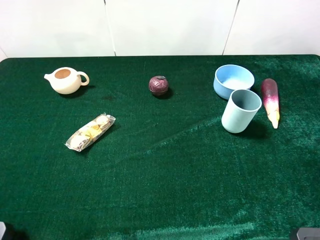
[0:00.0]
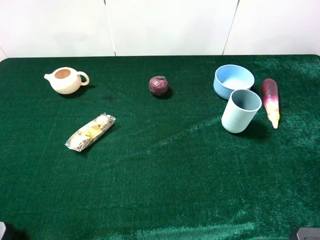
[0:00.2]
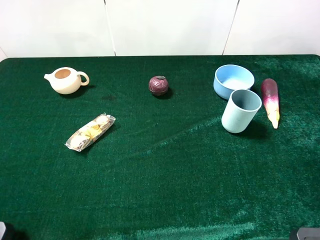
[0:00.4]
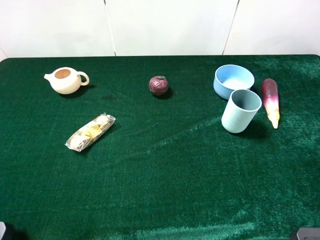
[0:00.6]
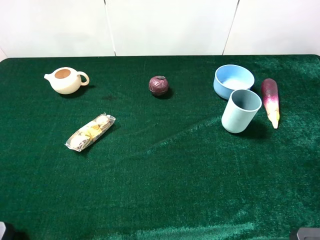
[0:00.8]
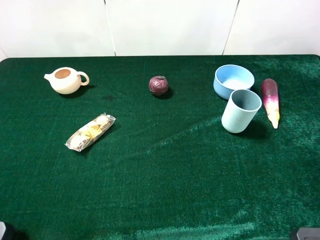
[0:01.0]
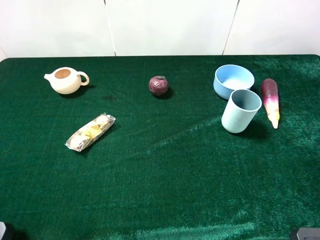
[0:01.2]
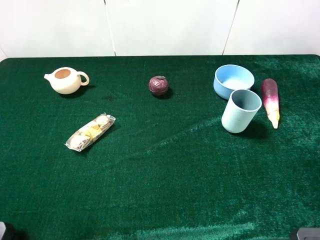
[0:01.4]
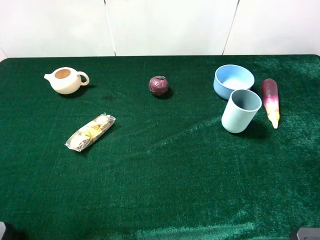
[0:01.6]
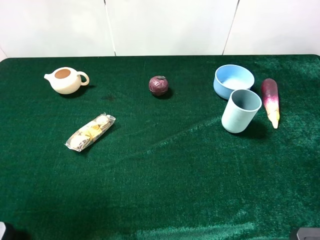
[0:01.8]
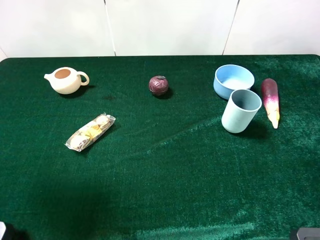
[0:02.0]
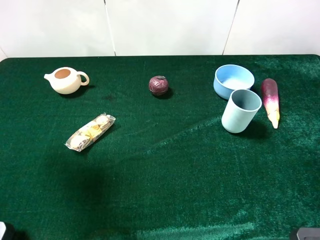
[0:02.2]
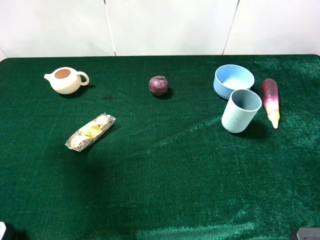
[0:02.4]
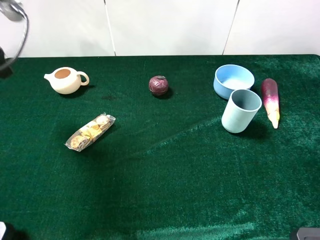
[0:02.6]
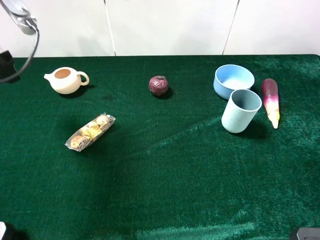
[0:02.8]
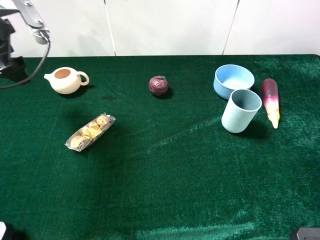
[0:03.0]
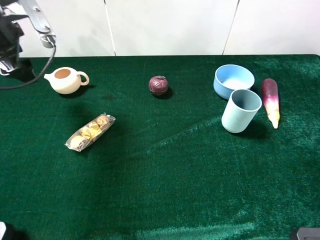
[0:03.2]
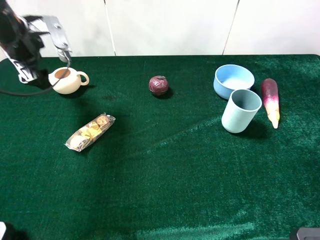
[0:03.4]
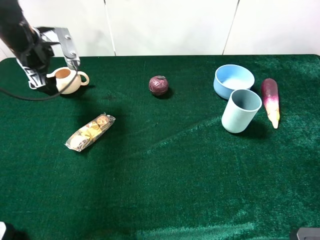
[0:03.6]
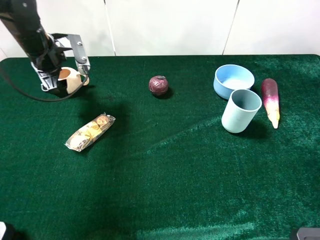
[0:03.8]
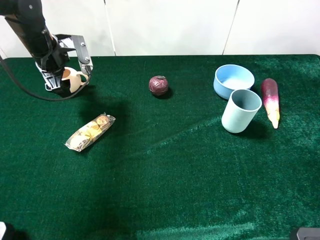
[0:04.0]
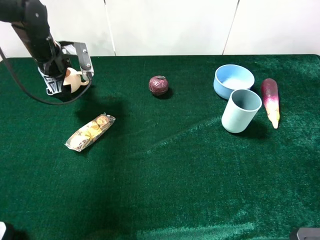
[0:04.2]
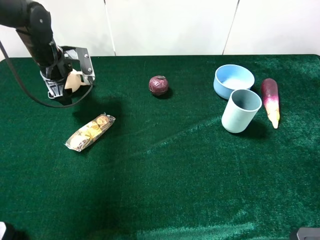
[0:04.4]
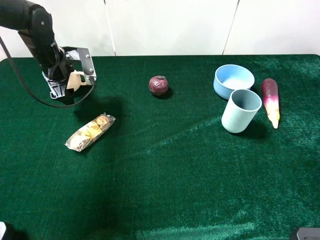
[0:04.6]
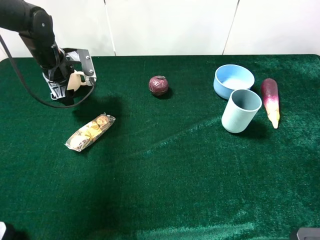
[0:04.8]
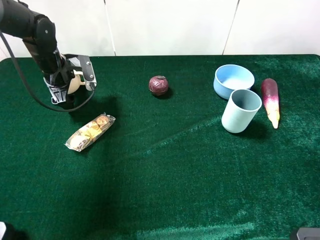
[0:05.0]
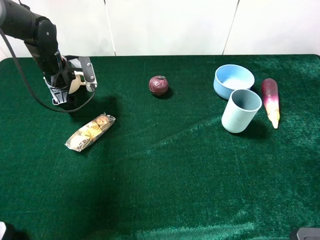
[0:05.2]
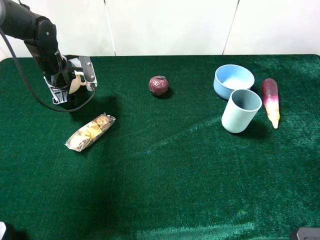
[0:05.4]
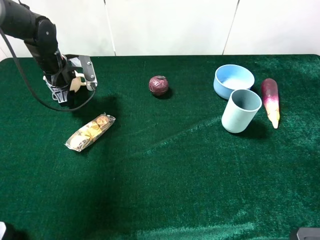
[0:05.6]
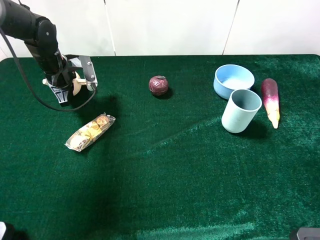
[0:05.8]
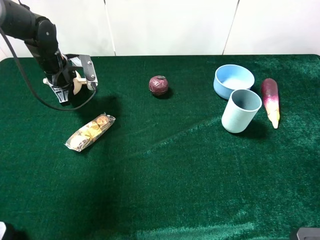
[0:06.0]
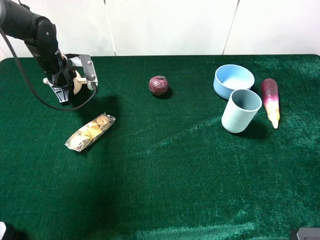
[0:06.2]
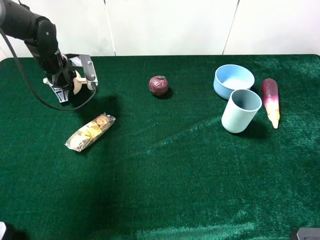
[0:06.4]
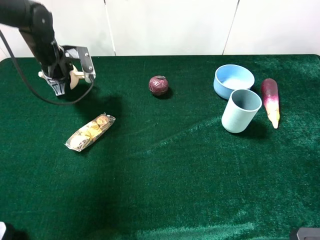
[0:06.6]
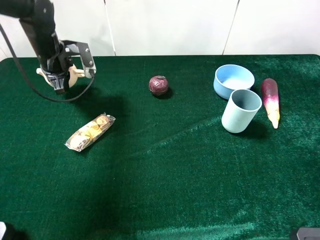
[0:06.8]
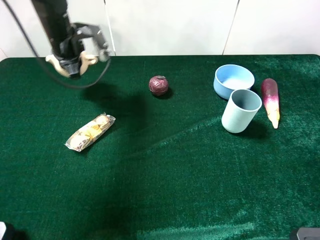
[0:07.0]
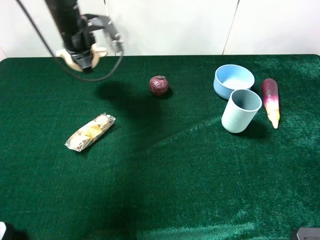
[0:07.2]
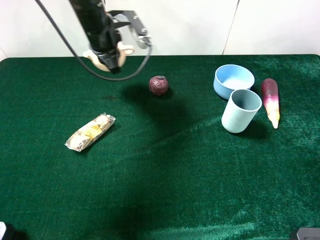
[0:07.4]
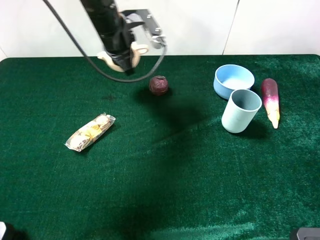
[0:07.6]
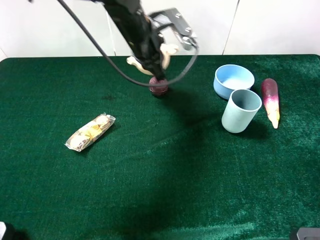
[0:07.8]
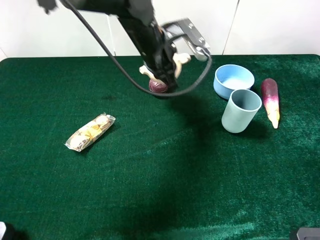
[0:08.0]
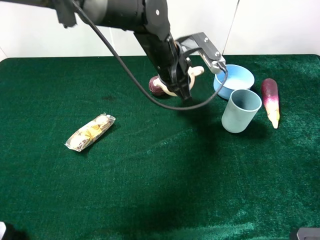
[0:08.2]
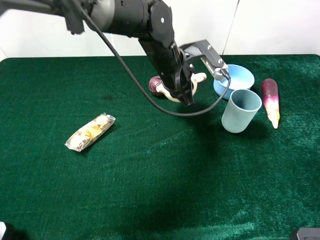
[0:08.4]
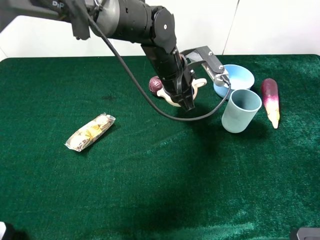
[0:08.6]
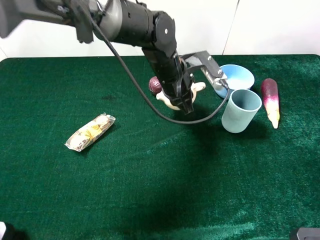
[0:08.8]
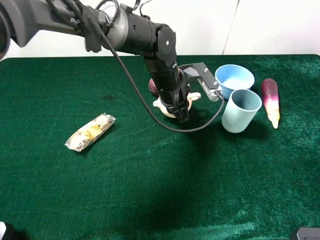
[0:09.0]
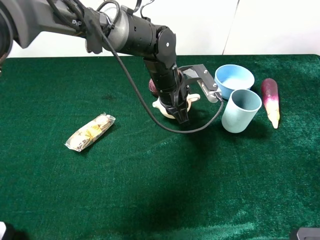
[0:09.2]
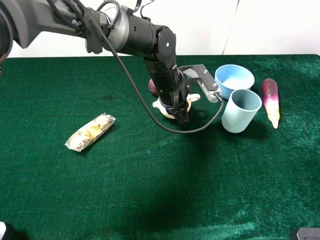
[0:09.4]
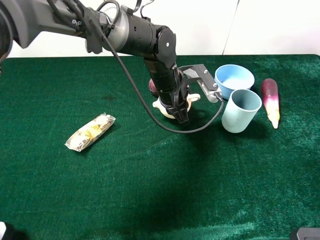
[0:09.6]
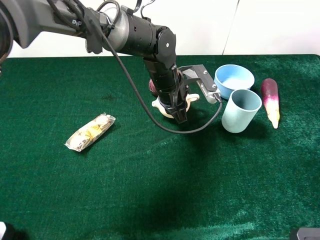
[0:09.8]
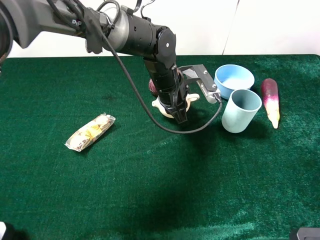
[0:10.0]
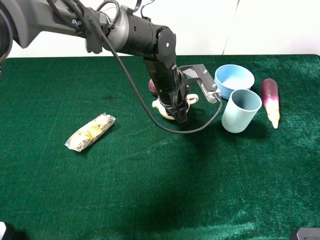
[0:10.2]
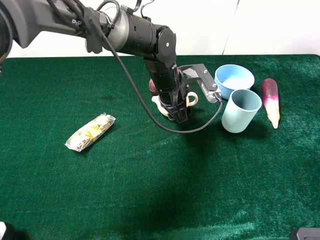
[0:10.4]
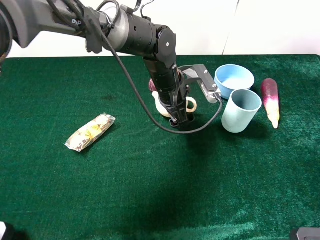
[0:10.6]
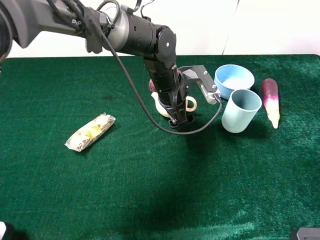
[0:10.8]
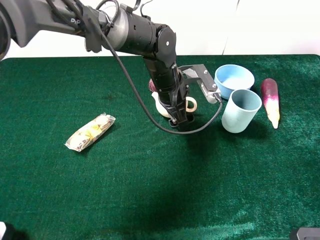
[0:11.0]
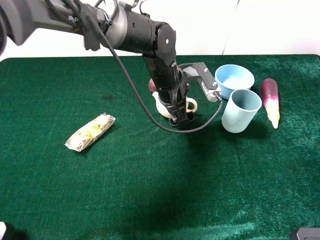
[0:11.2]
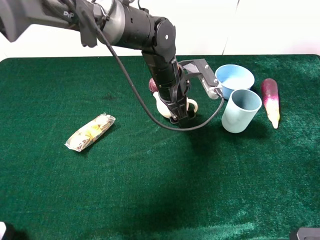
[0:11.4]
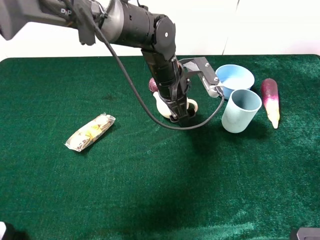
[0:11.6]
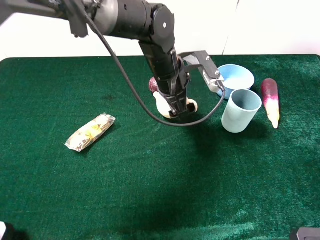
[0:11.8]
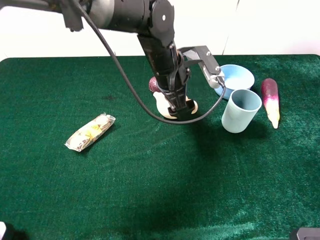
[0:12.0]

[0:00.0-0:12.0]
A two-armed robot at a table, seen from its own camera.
Task of the whole recording: the gripper move the object.
Step, 0:00.0 to 0:06.2: Grasp the teapot with the left gripper.
Step, 0:06.4 to 0:11.8: Place the teapot on the table with the left gripper.
0:01.6 to 0:03.0: The left gripper travels forward by about 25 cm.
0:03.0 to 0:04.4: The left gripper is displaced downward and forward by some 15 cm.
0:04.4 to 0:06.0: The left gripper closes.
0:06.0 to 0:07.6: The left gripper shifts approximately 20 cm to the right and upward.
0:07.6 to 0:09.0: The left gripper heads to the right, downward and backward, covering roughly 15 cm.
0:09.0 to 0:10.4: The left gripper opens.
0:10.4 to 0:12.0: The left gripper moves upward, roughly 5 cm.

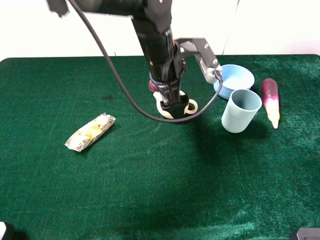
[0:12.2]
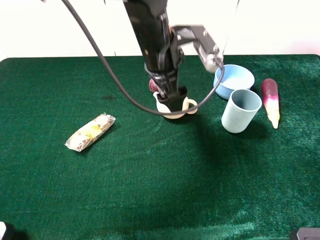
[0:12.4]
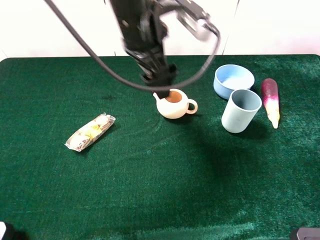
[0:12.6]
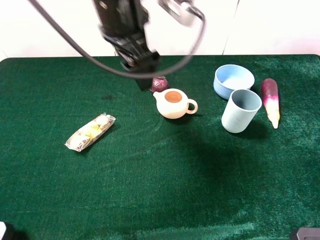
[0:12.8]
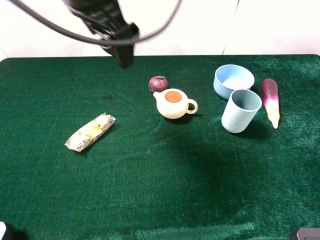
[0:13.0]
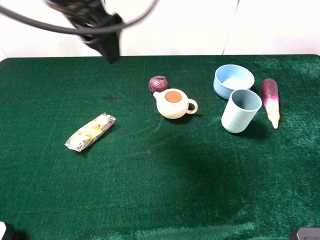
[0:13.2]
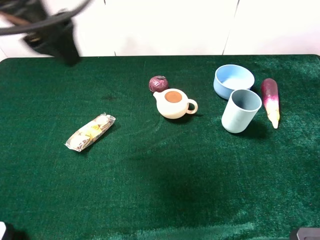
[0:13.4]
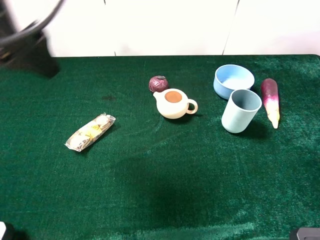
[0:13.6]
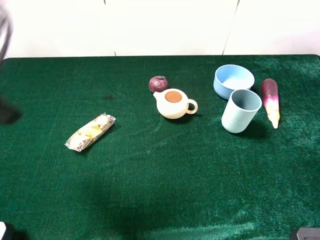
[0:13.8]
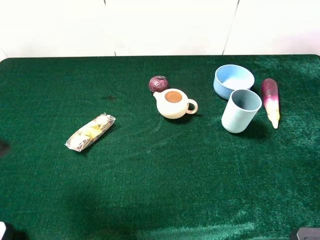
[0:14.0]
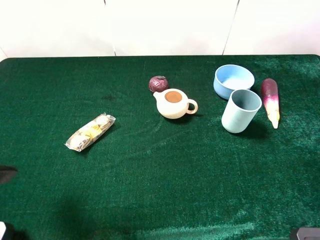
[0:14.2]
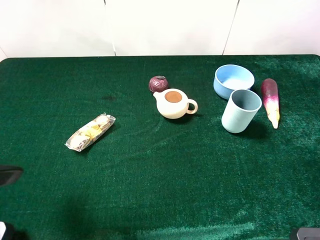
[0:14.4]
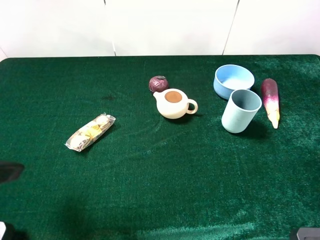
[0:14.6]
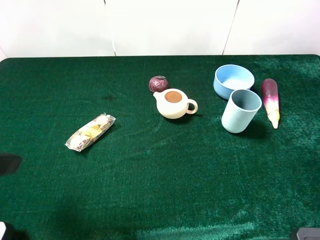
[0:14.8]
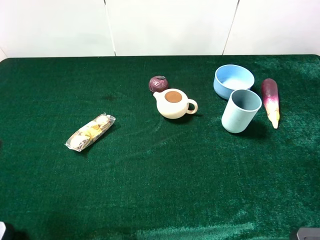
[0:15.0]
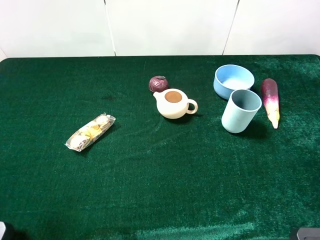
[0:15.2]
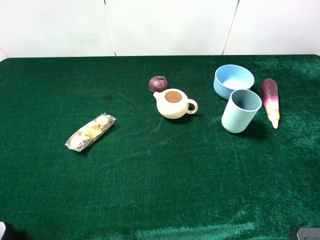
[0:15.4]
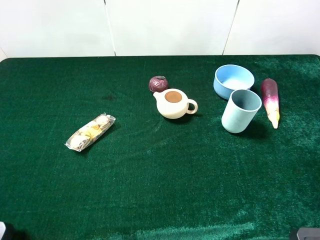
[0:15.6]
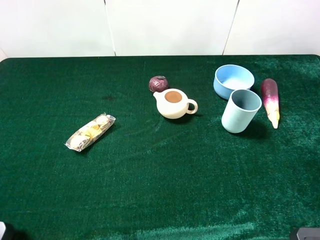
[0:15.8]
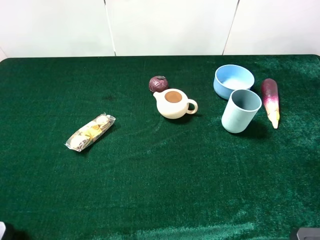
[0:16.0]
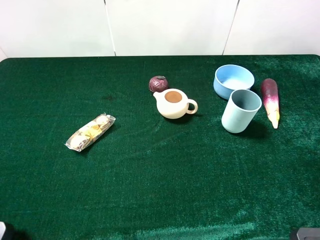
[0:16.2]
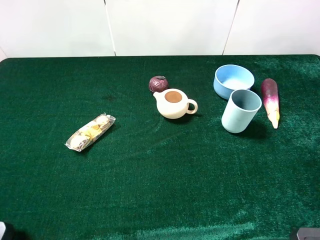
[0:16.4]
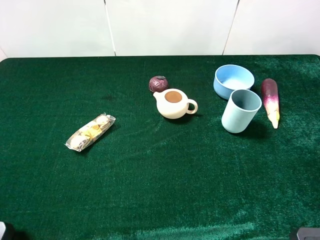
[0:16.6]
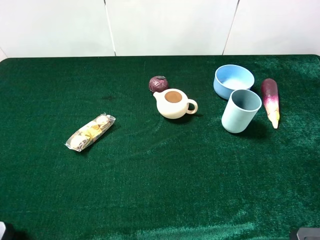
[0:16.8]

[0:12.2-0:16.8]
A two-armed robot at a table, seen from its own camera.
Task of the whole recording: the gripper move the object.
0:12.2 to 0:13.8: The left gripper is displaced to the left, backward and upward by approximately 35 cm.
0:13.8 to 0:15.2: The left gripper is displaced backward and to the left by about 10 cm.

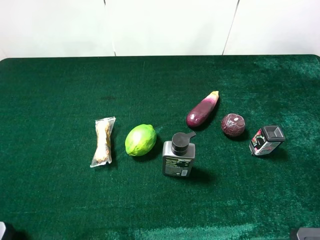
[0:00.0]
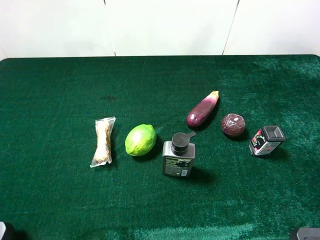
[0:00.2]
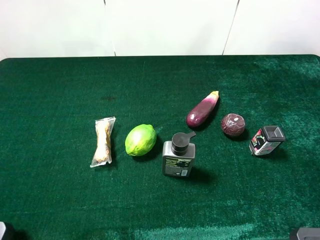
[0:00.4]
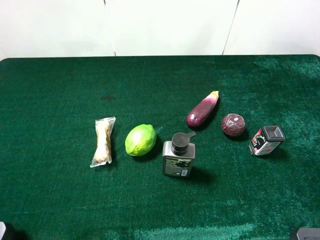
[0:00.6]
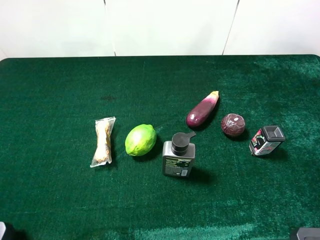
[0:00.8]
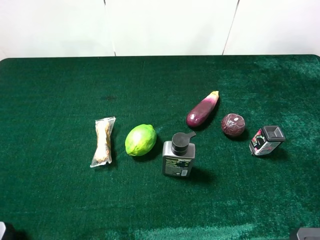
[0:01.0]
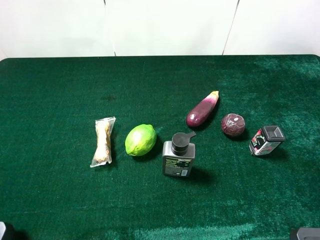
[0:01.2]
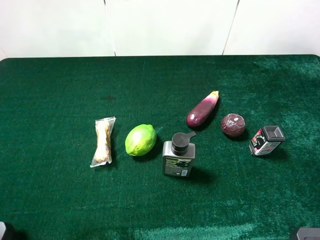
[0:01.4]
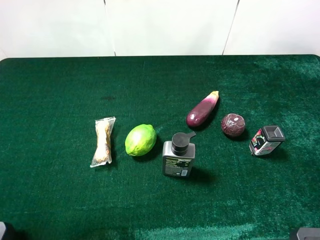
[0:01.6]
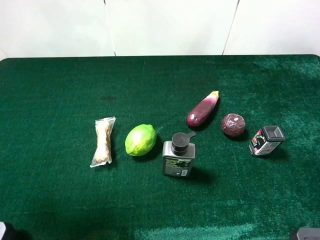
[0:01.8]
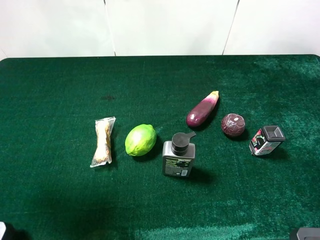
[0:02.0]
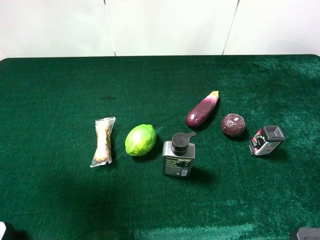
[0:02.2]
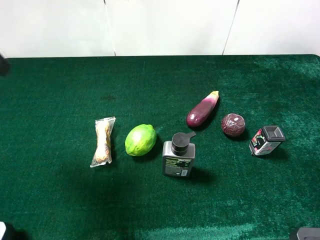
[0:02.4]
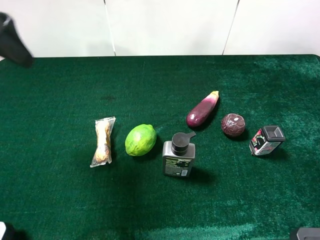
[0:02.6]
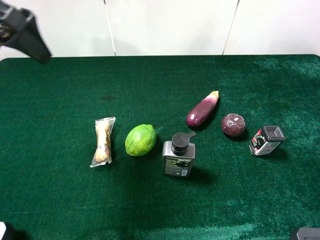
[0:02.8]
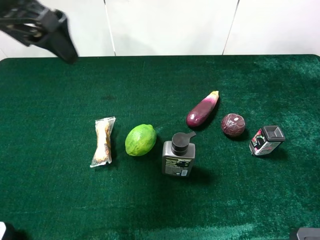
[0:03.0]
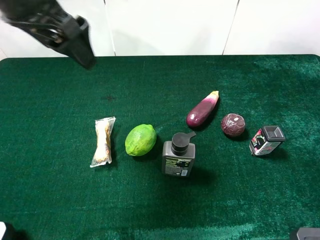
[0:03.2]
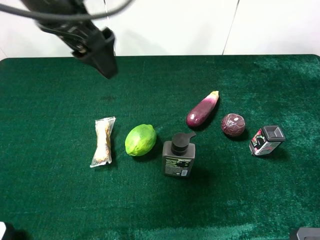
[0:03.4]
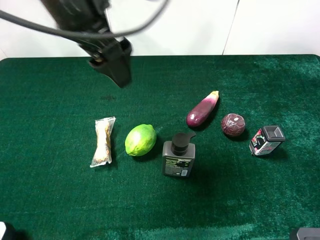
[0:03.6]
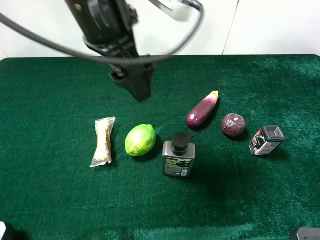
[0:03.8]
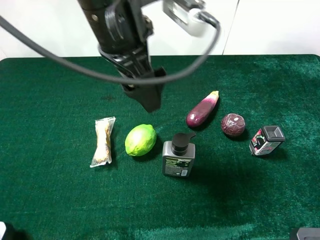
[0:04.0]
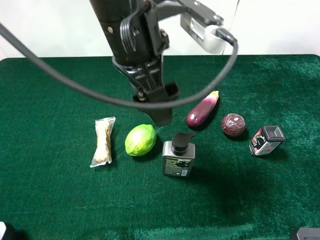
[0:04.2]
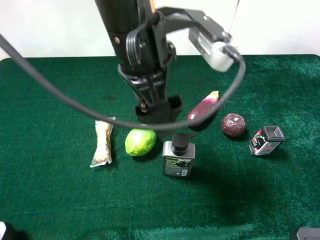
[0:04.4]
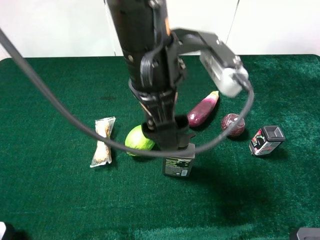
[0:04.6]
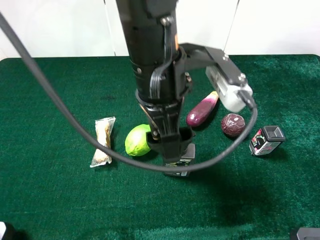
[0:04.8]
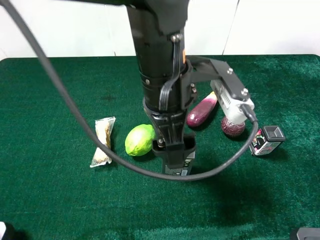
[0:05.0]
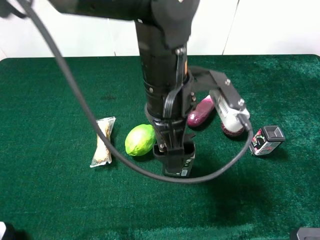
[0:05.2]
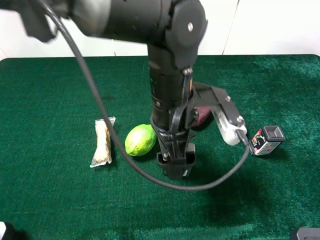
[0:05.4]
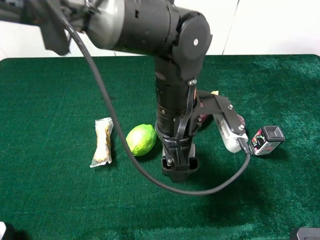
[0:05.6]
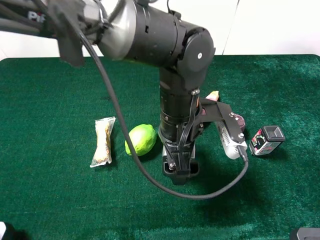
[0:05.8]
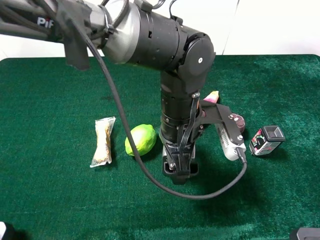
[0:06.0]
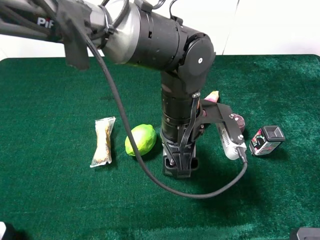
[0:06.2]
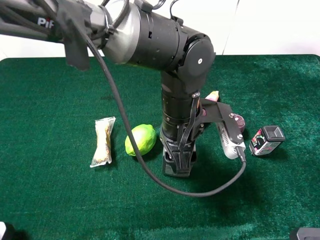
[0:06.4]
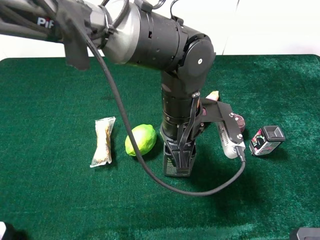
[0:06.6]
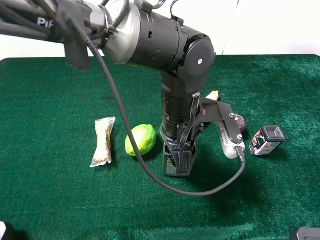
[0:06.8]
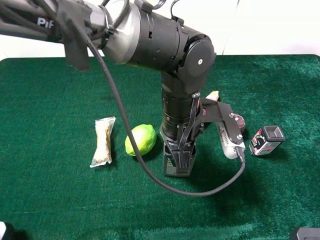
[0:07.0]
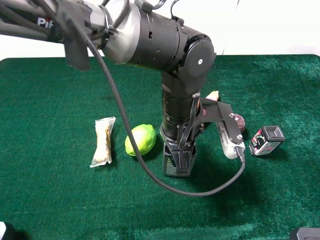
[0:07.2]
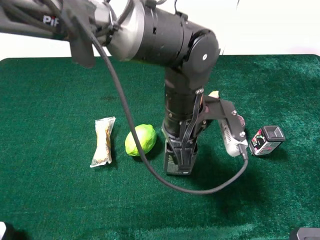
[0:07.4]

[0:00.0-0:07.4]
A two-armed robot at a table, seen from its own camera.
Task of the whole recording: the gripper move the object.
Step, 0:00.0 to 0:07.2: Grasp the hard facial cleanser with the left gripper.
0:01.4 to 0:03.0: The left gripper shifts about 25 cm forward and to the right.
0:03.0 to 0:04.4: The left gripper travels to the right by approximately 15 cm.
0:04.4 to 0:06.0: The left gripper is displaced downward and to the right by roughly 15 cm.
0:06.0 to 0:07.4: The left gripper closes up.
